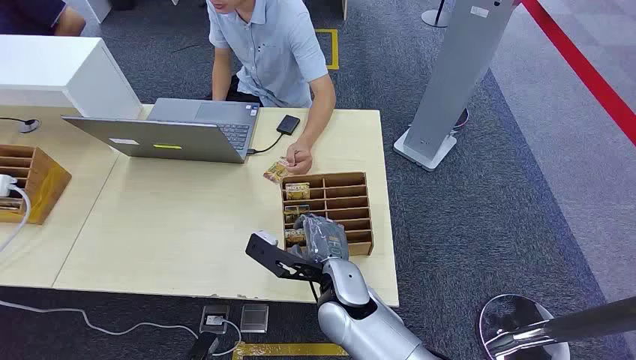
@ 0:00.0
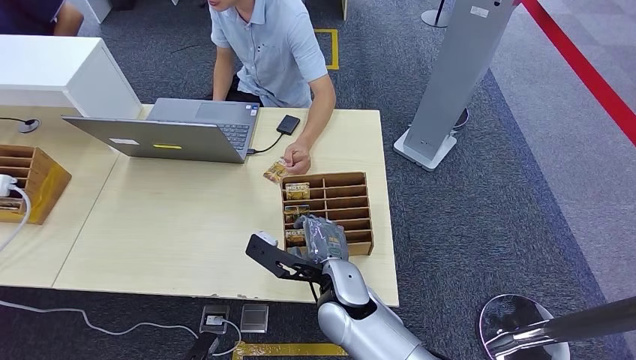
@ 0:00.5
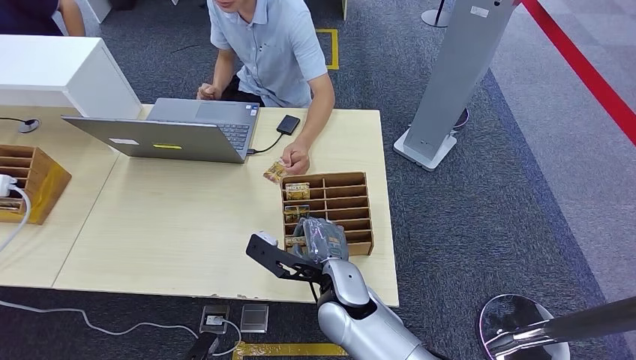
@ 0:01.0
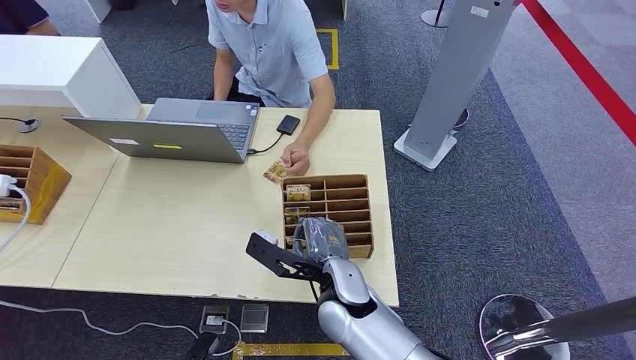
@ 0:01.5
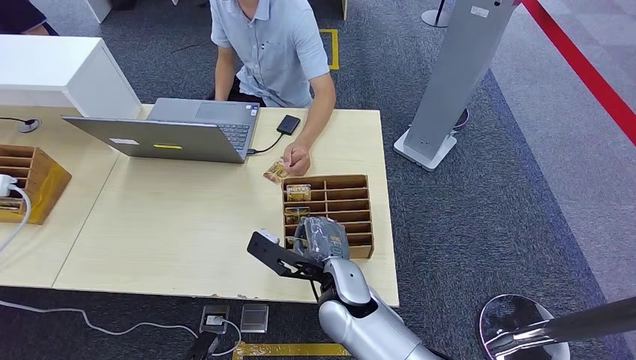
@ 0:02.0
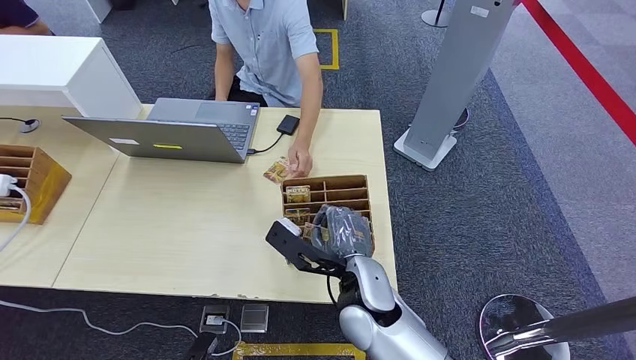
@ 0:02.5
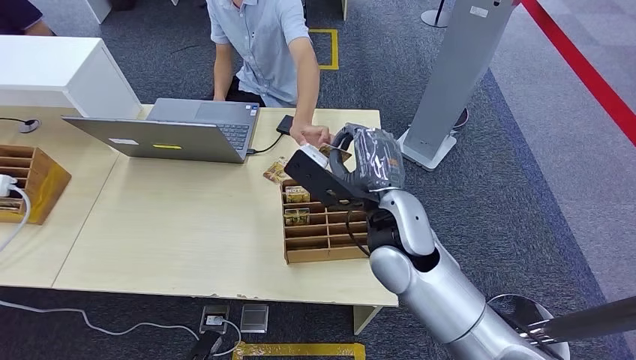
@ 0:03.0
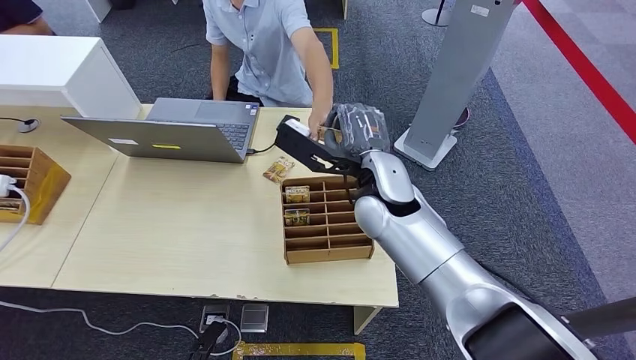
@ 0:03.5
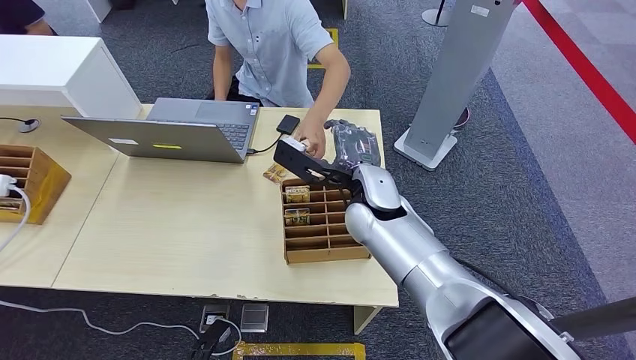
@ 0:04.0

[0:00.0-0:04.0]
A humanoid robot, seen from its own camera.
Step, 0:00.0 to 0:02.5: Pick up the room card from the card holder.
Step, 0:03.5 to 0:04.0: Hand the room card to the target.
0:02.0 to 0:04.0: The right hand shifts roughly 15 cm forward and upward.

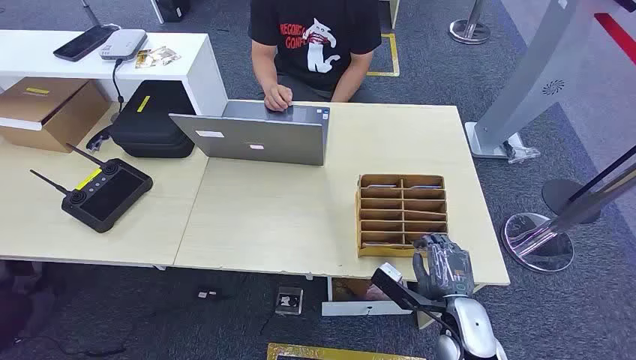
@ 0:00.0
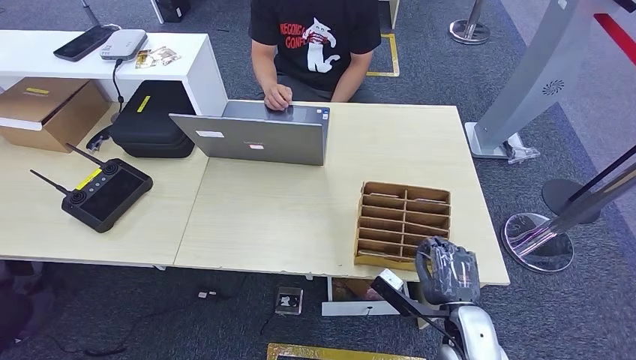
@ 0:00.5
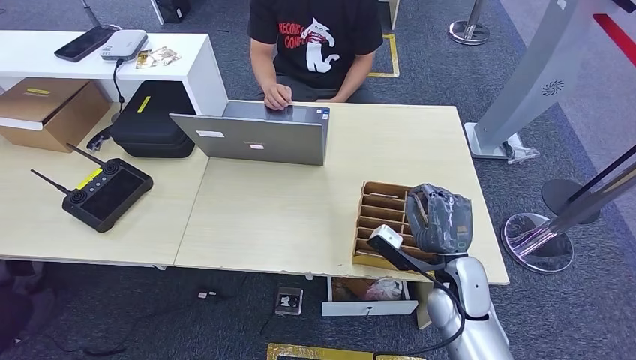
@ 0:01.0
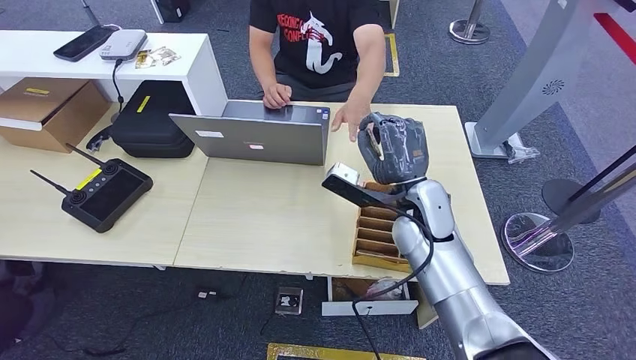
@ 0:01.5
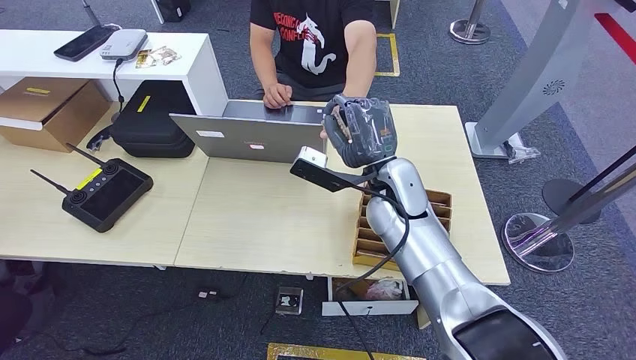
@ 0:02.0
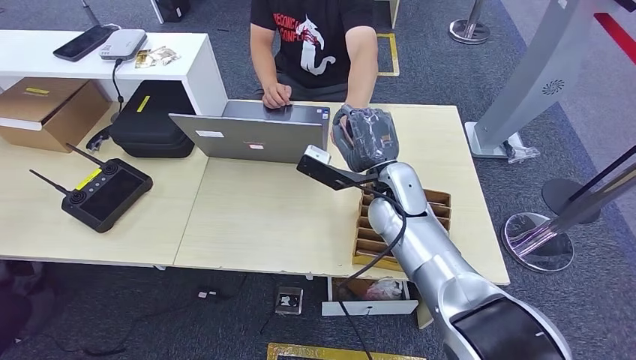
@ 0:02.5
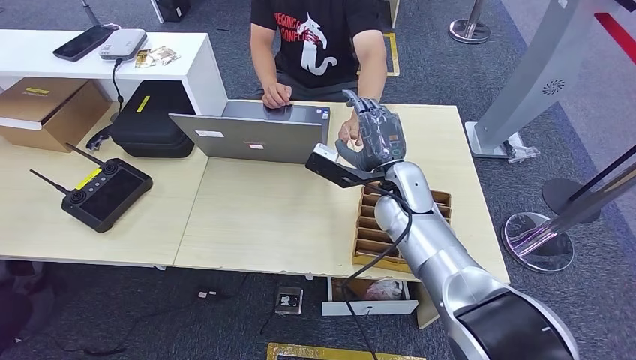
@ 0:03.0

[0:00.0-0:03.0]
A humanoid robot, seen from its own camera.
Step, 0:00.0 to 0:01.0: Pick up the room card from the card holder.
Step, 0:01.5 to 0:03.0: Hand the room card to the target.
0:01.5 to 0:03.0: There are only small adjustments of the hands.
